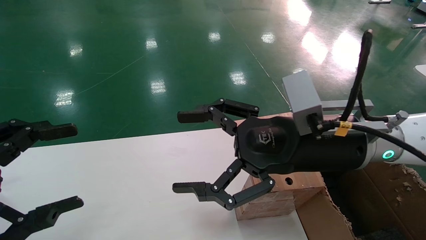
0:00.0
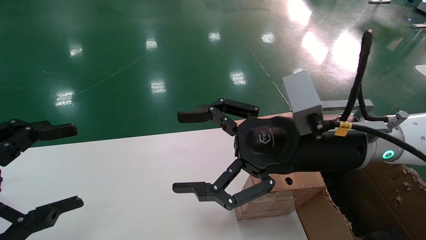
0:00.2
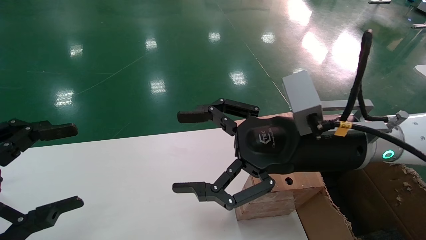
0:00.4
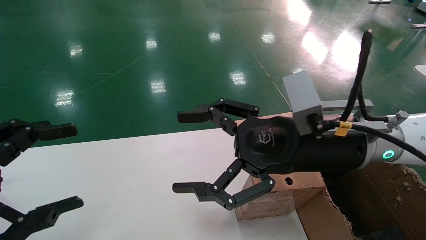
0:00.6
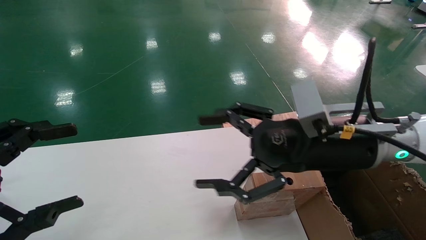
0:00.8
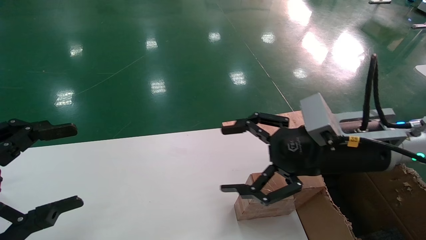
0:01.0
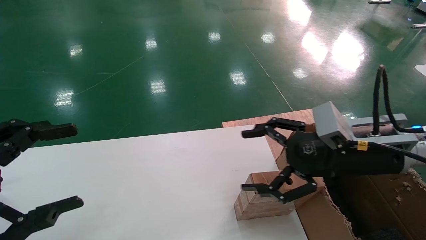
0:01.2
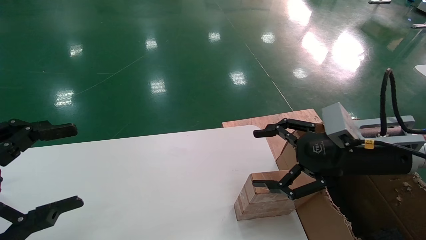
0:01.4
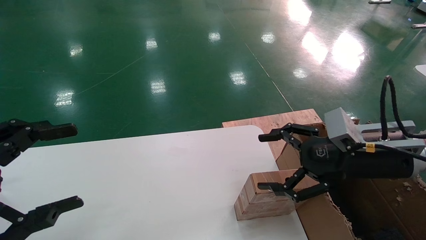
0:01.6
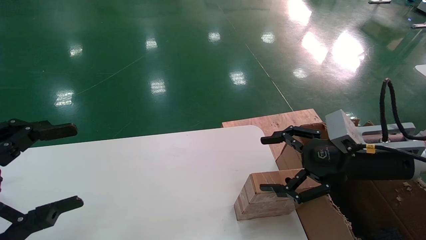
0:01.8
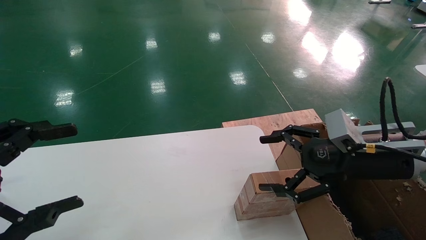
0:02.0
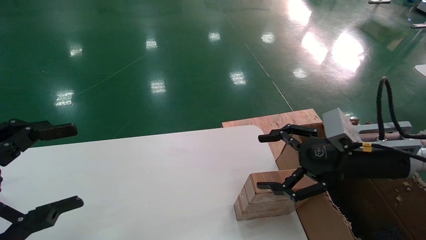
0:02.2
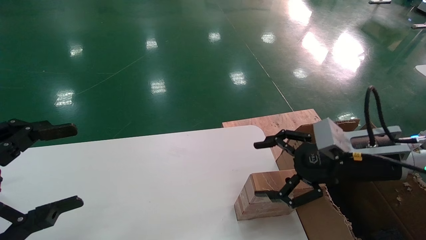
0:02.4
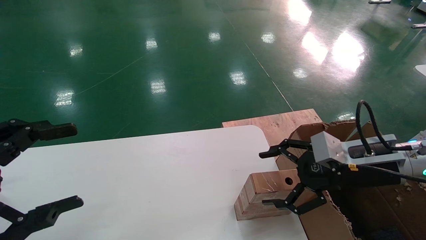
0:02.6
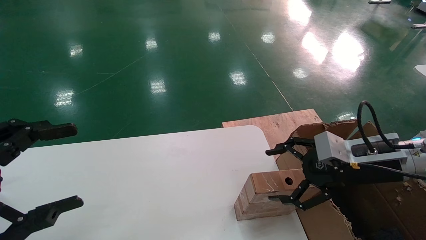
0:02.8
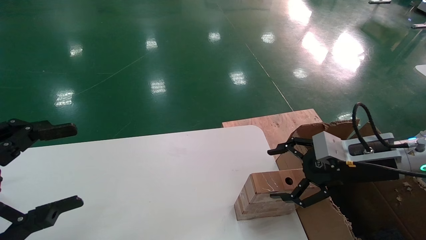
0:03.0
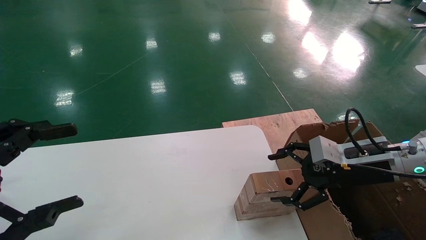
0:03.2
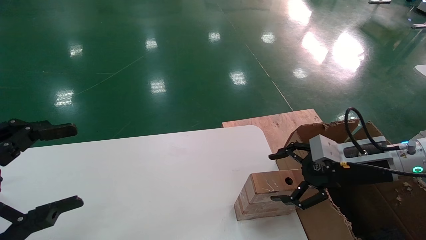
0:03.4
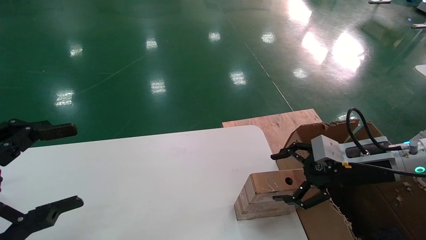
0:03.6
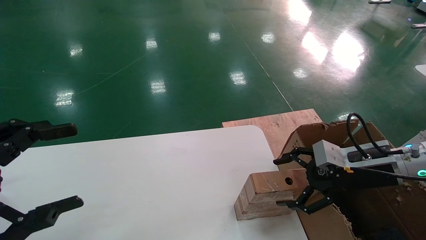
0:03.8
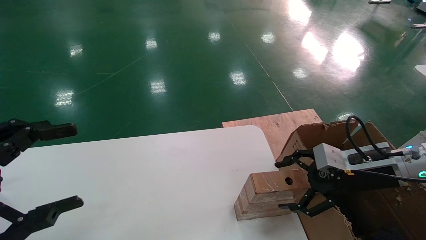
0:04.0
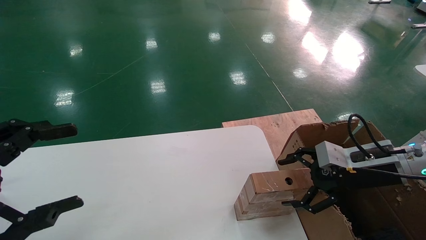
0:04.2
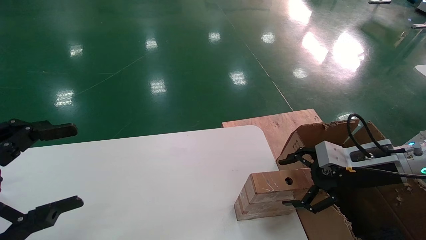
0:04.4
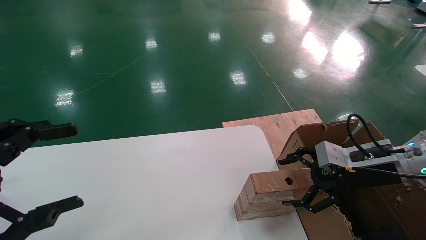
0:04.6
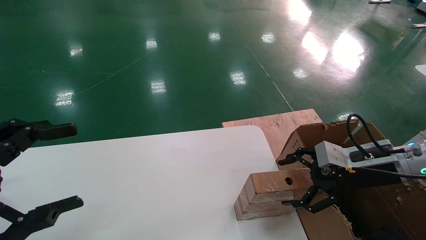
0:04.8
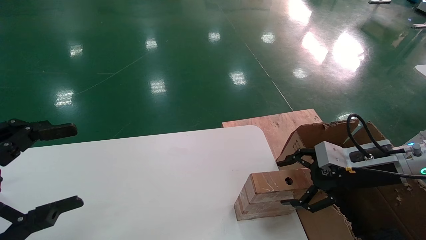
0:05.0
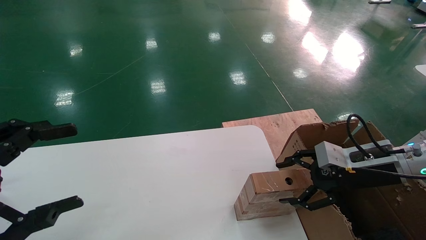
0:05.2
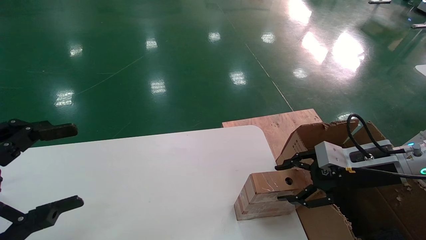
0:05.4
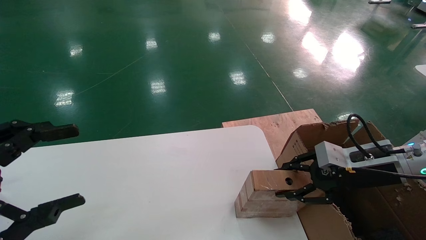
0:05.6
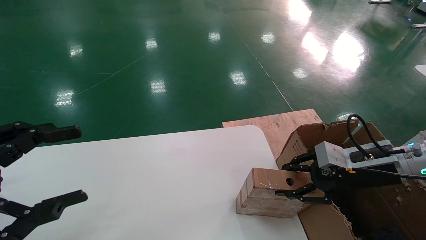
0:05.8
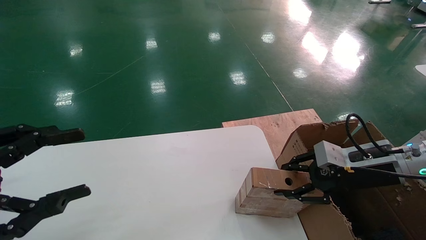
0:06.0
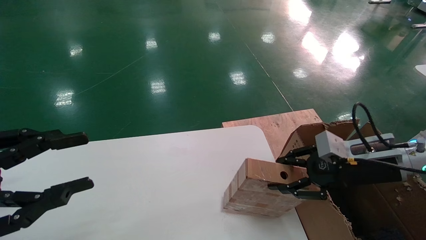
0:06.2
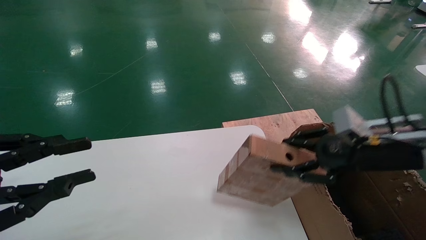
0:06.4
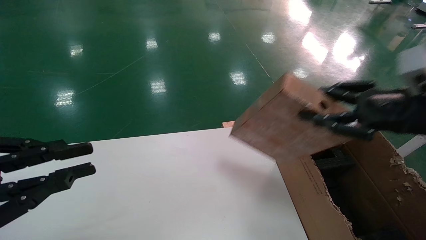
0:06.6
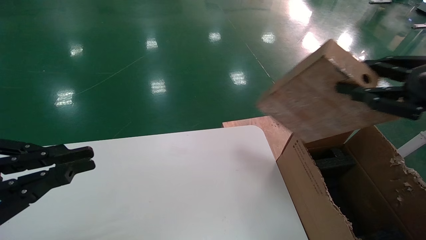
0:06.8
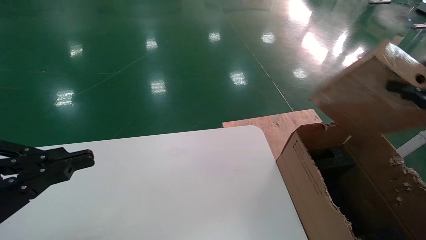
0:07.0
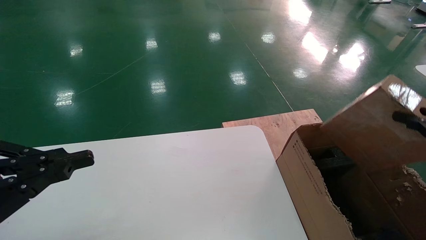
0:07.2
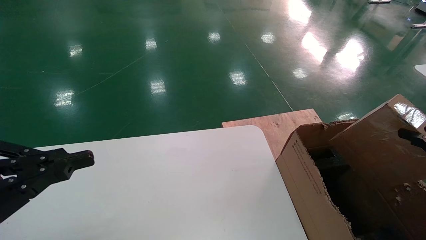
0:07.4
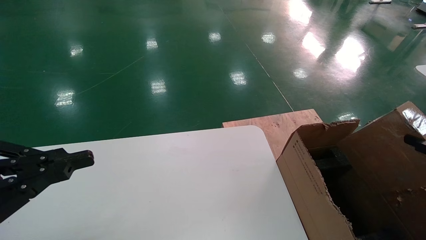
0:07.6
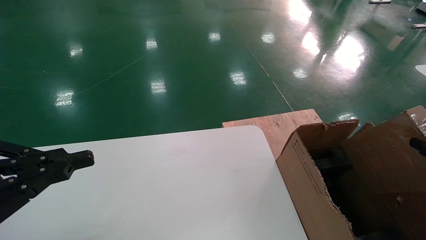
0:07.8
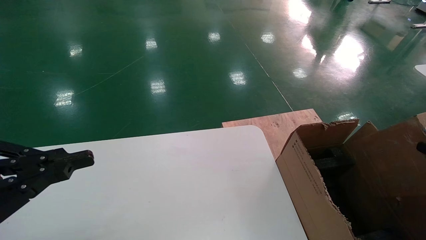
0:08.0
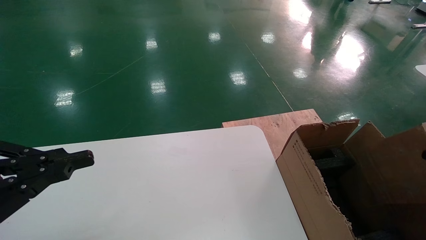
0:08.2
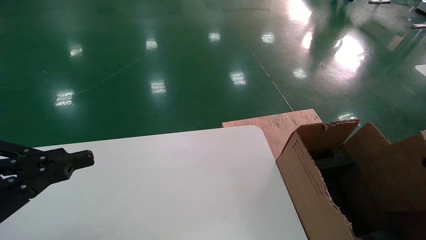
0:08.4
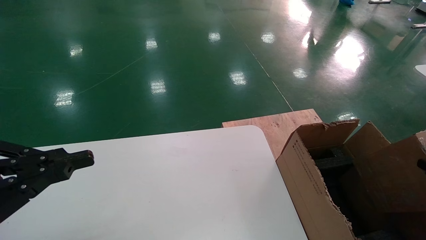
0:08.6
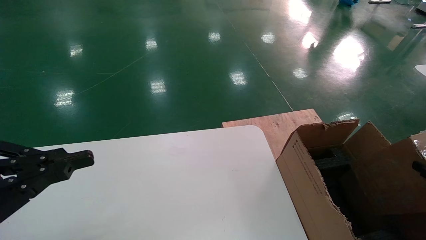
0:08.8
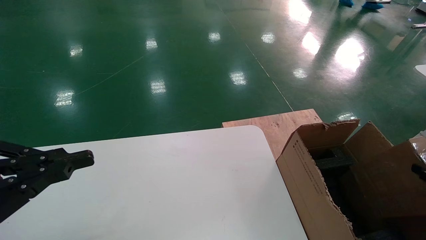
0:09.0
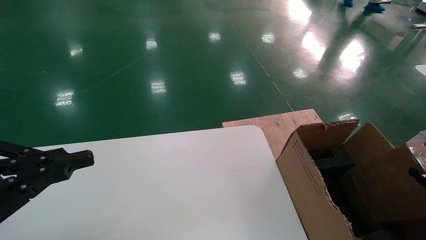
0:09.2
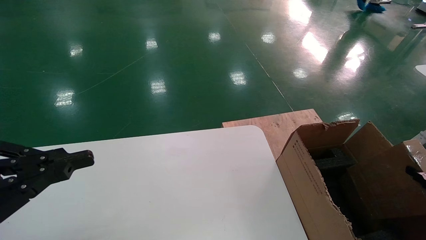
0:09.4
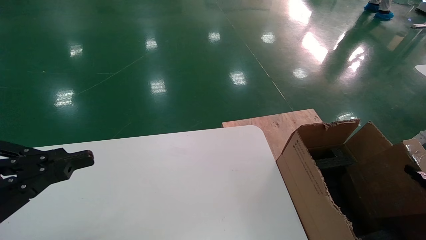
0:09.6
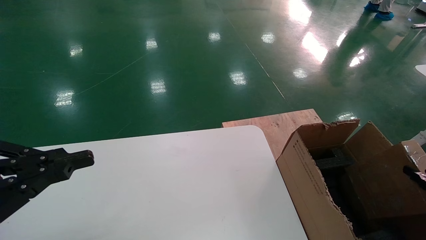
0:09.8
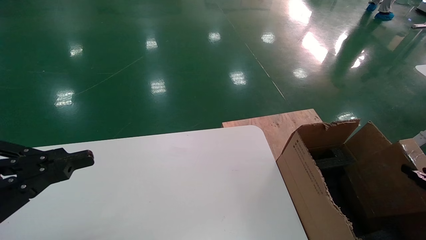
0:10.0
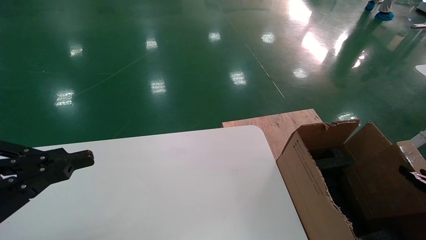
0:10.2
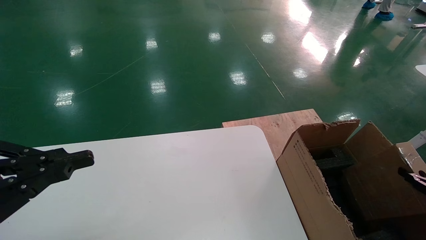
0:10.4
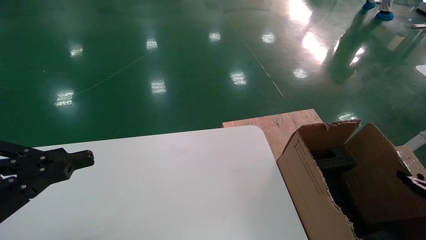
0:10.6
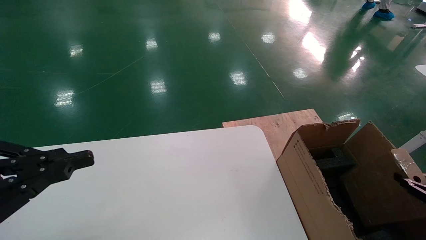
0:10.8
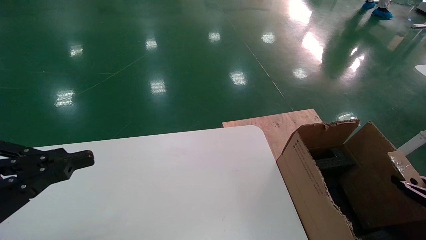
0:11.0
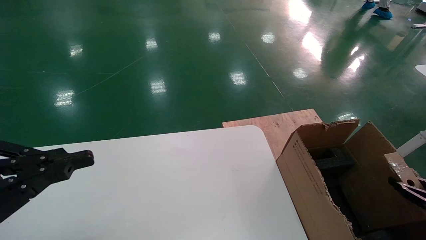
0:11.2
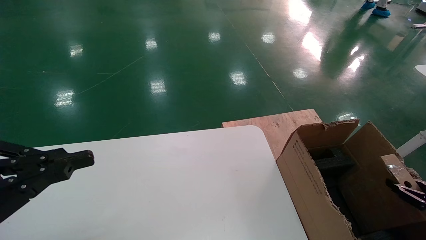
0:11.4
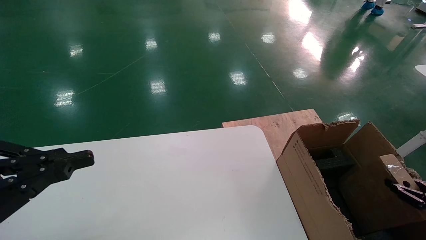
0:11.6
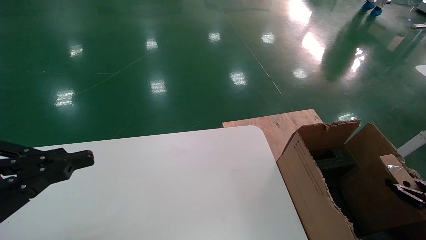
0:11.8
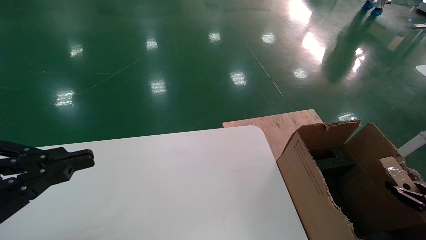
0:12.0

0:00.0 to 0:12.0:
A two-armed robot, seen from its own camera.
Task of the whole recording: put the box on the table into the big box.
Step, 0:01.0 to 0:05.6: Pick up the mouse and the power cord paper box.
0:00.0 to 0:01.6: The right gripper is displaced to the right by some 10 cm.
0:01.6 to 0:03.0: The right gripper moves some 5 cm.
0:03.0 to 0:04.4: The grippers make only small movements.
0:04.4 to 0:06.0: The right gripper closes up.
0:06.0 to 0:07.6: The right gripper shifts some 25 cm backward and to the right. Meanwhile the left gripper closes up.
0:07.6 to 0:09.0: The right gripper travels downward by some 10 cm.
0:09.0 to 0:10.4: The grippers move only a little.
0:10.4 to 0:12.0: The grippers move only a little.

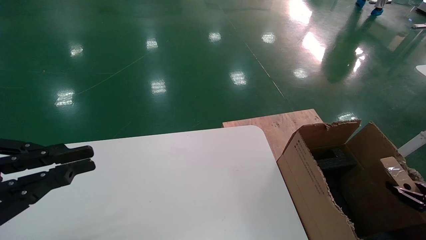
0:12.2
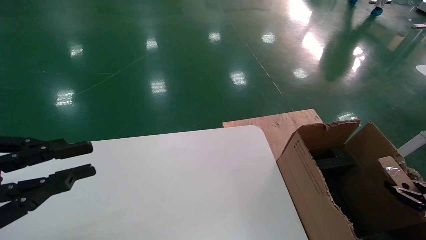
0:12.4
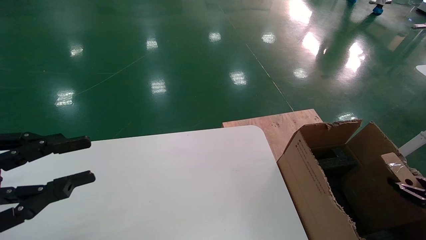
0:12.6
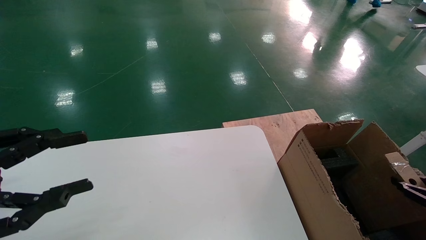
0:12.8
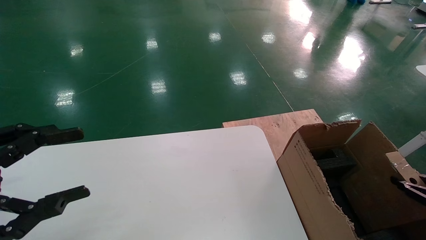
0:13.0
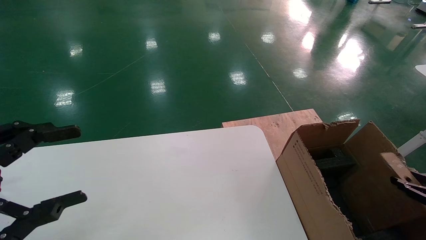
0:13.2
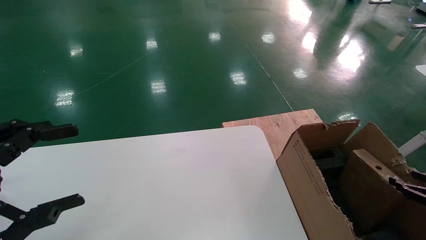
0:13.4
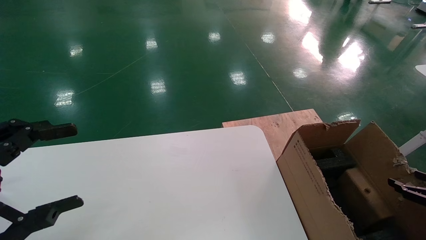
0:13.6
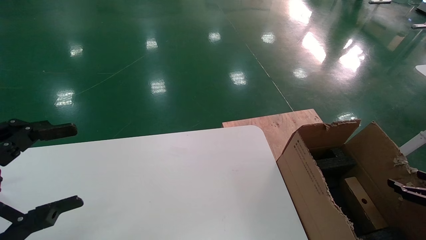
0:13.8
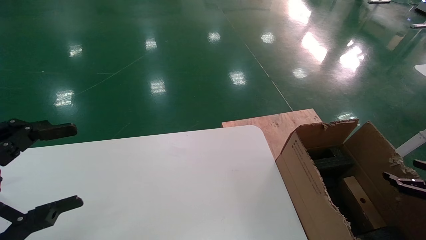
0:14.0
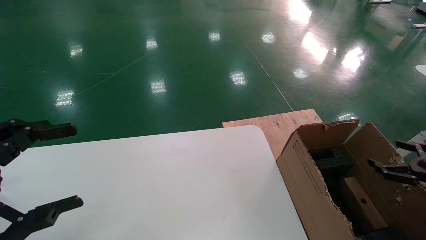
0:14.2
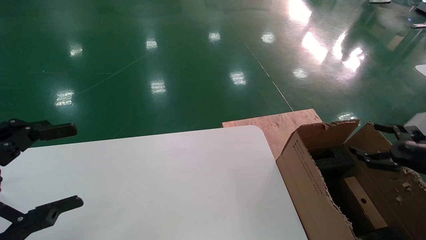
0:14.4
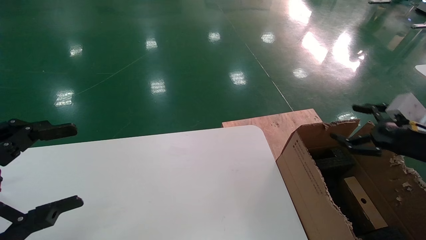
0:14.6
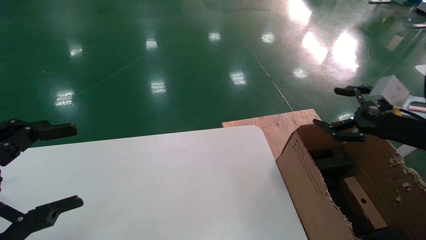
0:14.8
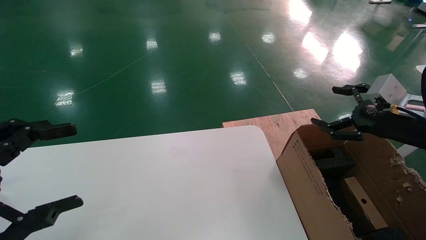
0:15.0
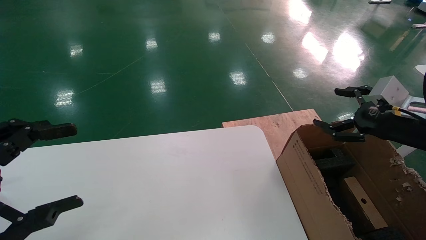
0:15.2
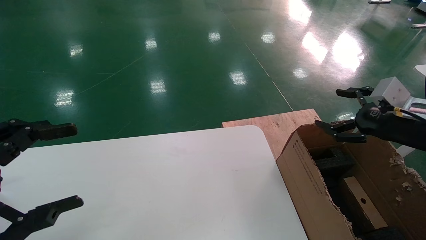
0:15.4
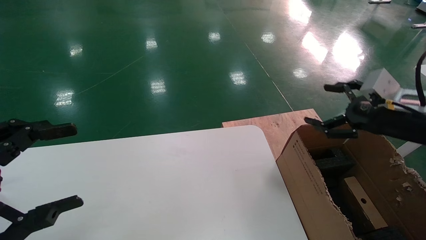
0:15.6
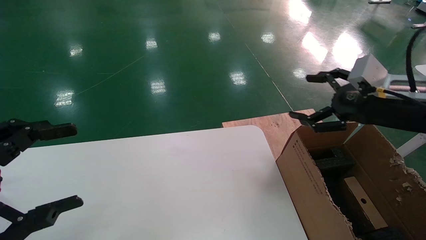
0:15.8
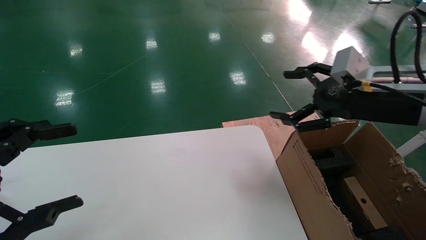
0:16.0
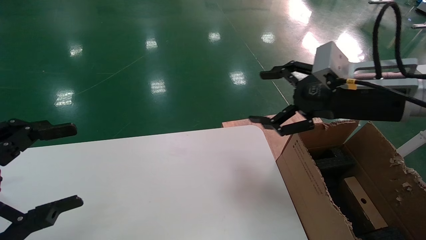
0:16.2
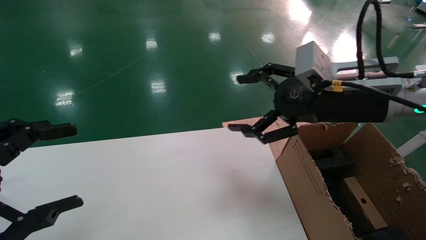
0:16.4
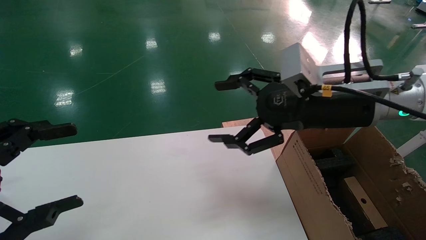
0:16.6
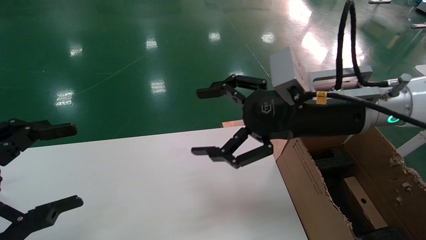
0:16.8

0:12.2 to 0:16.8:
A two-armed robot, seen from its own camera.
Task of the whole recording: put the box on the table into the big box.
0:12.2 to 0:13.8: The right gripper opens its fingers; the left gripper opens up.
0:13.8 to 0:15.2: The right gripper shifts roughly 25 cm upward, to the left and forward.
0:15.2 to 0:16.8: The right gripper heads to the left, covering approximately 20 cm.
